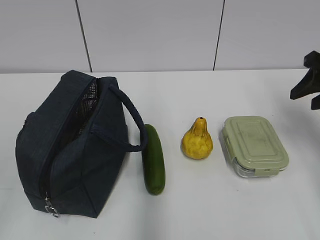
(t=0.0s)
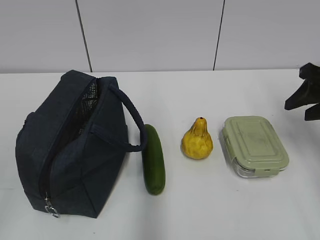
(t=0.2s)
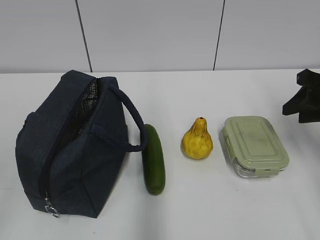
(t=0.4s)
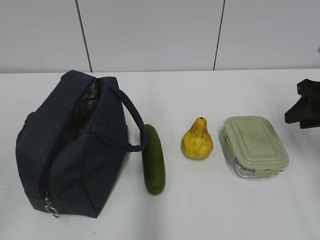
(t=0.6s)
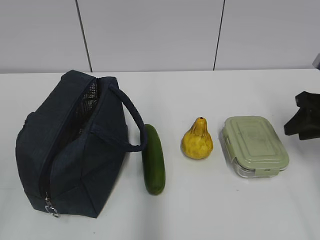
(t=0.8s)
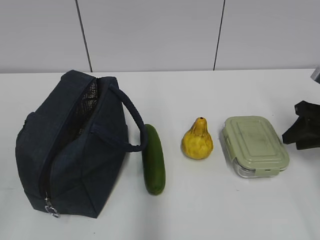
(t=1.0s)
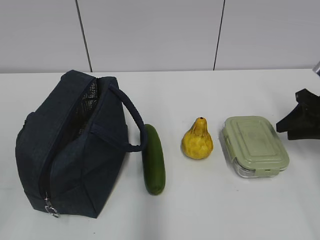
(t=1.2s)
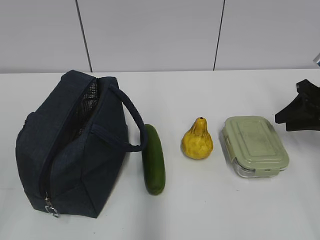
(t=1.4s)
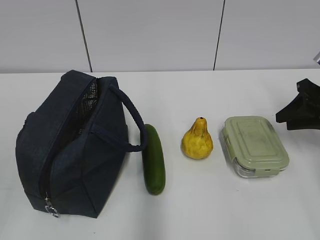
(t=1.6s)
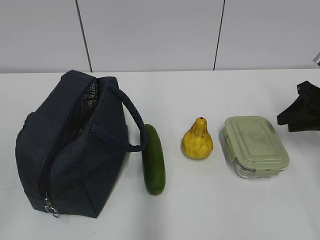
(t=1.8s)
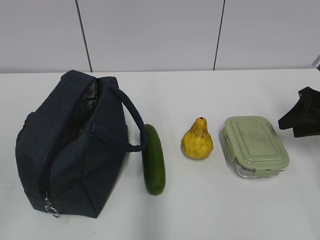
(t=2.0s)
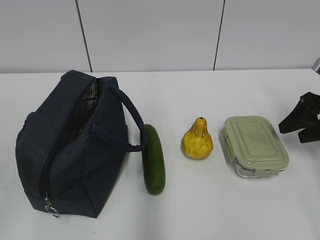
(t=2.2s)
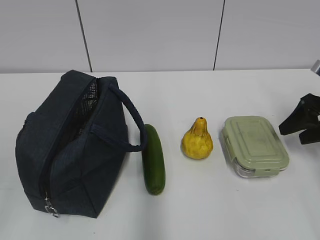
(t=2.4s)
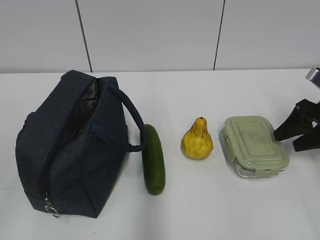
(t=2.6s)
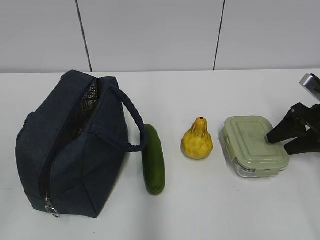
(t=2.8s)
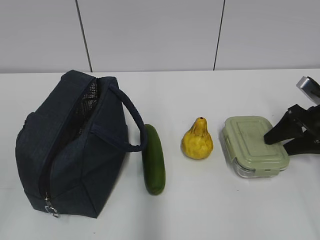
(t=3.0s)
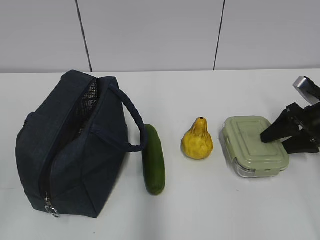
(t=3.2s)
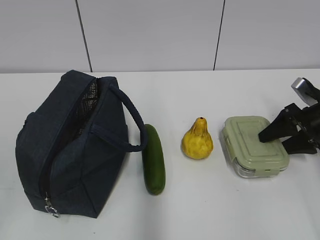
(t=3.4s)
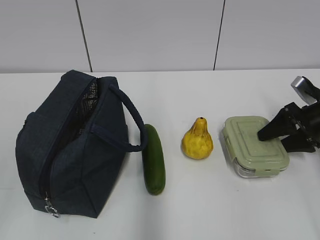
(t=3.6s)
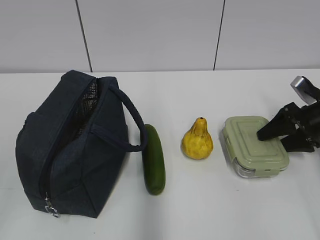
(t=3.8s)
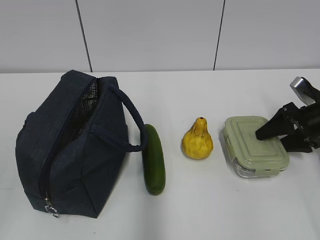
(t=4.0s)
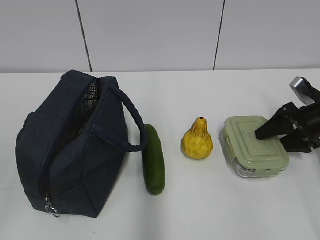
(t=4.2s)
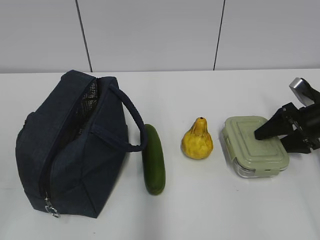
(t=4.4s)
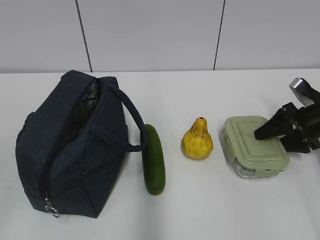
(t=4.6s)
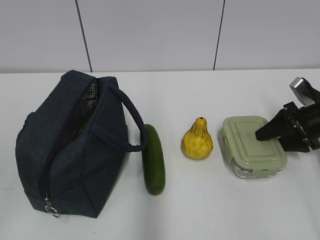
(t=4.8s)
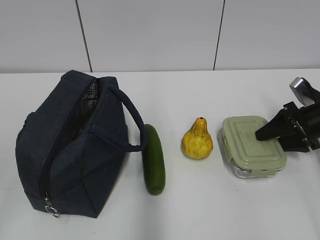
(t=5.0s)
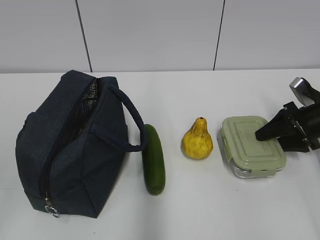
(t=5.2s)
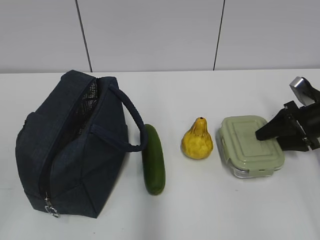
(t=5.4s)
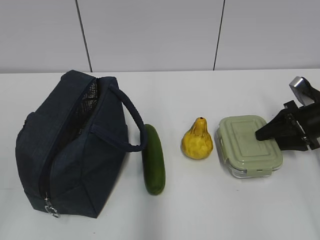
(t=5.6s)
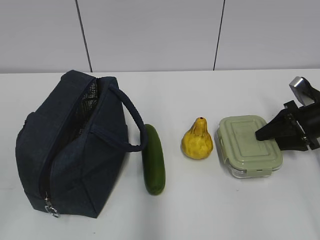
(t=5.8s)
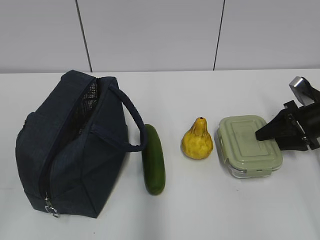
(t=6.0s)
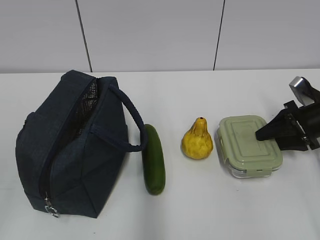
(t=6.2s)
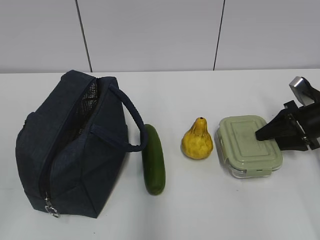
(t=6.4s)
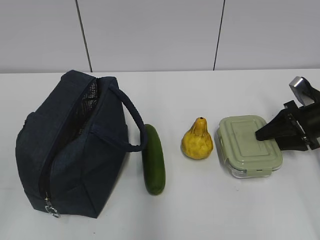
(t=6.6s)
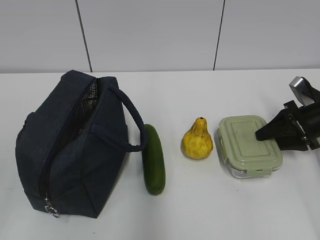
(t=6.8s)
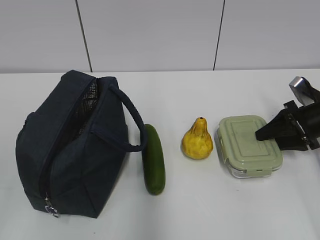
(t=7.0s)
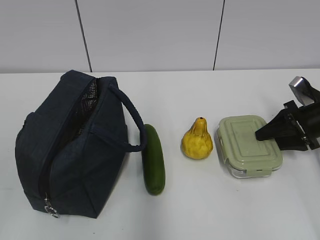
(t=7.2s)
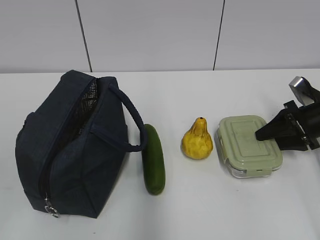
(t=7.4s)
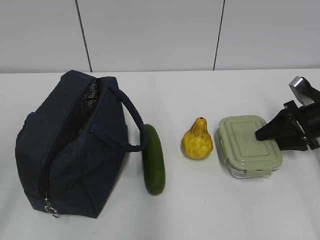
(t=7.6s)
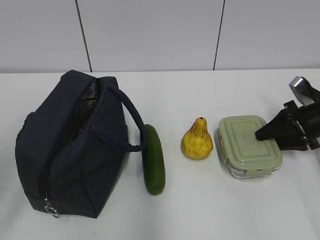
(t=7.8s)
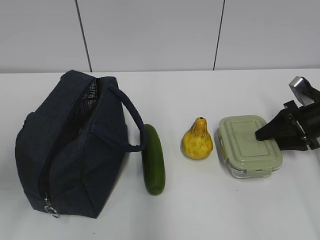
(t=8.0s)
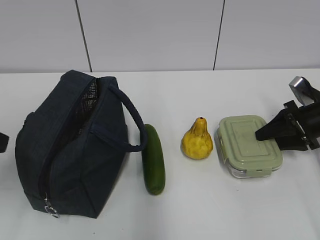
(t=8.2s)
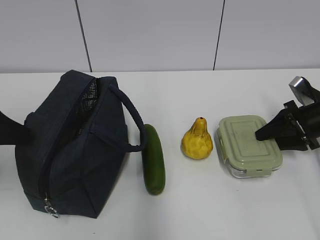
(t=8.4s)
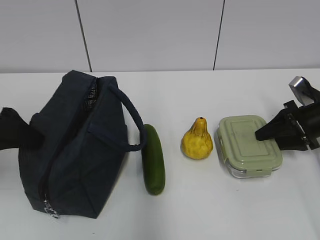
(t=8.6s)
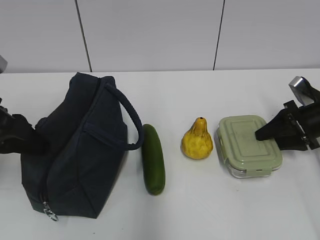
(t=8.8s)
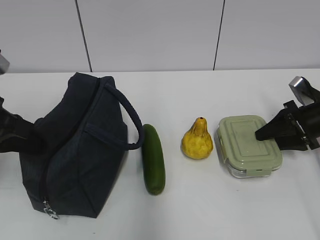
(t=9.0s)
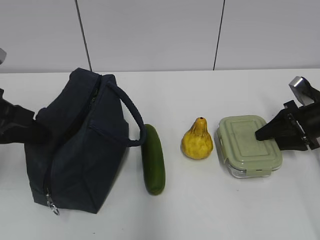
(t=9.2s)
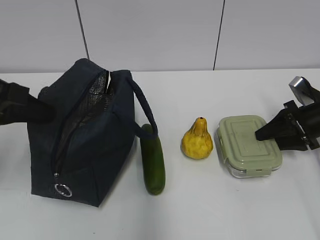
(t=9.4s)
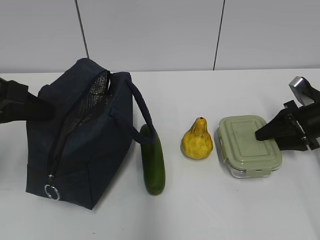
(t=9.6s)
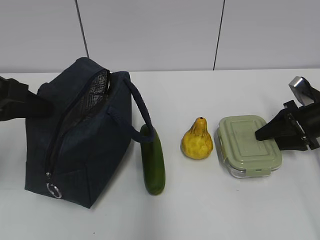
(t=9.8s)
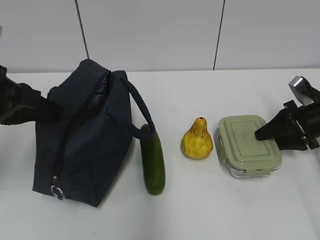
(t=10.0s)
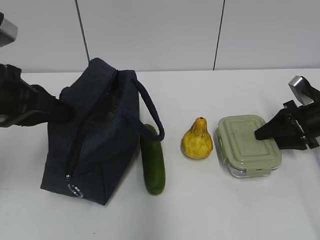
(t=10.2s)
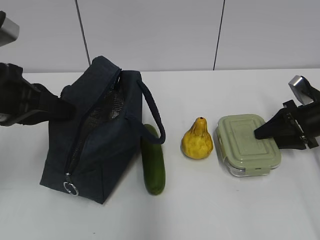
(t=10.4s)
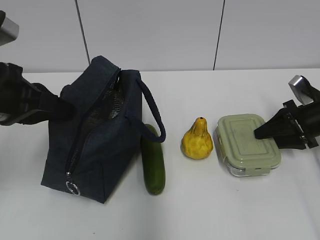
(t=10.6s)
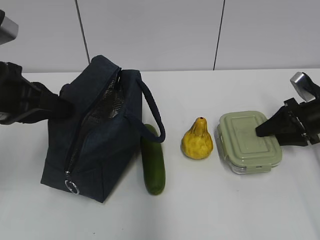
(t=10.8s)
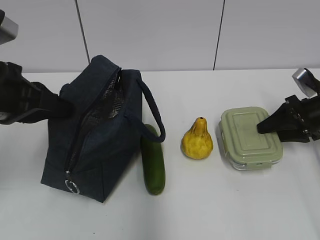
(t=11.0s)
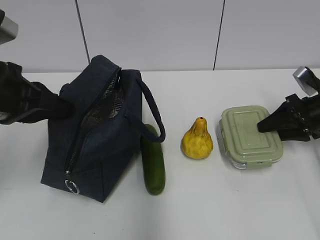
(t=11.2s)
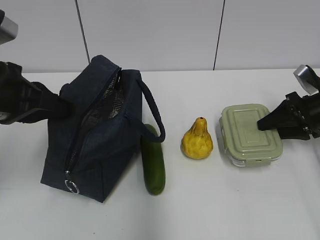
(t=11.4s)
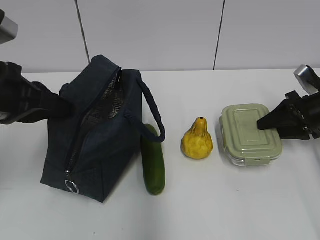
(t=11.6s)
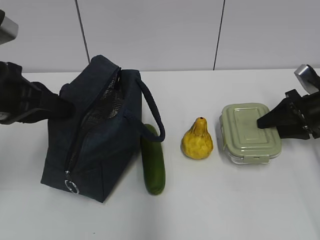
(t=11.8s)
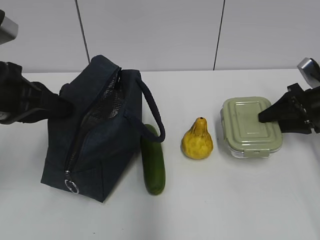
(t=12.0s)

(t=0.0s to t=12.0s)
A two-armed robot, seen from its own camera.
Step, t=0.0s - t=9.4s: Grab the lunch box with your right hand.
t=0.0s - t=1.6s: The right gripper shifts roughly 5 cm downward.
t=1.6s - t=3.0s: The right gripper changes place by some 5 cm, and opens its fingers.
t=3.0s - t=4.4s: The grippers move only a little.
t=4.4s - t=6.0s: Both grippers stay put.
t=7.6s - t=9.0s: The left gripper is displaced forward by roughly 20 cm, and closes its fingers.
t=9.0s - t=12.0s: The grippers move only a little.

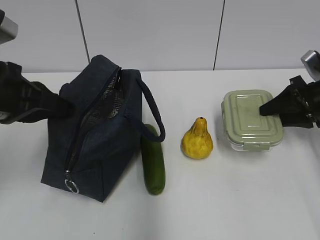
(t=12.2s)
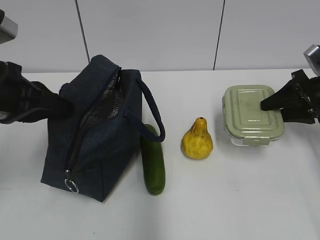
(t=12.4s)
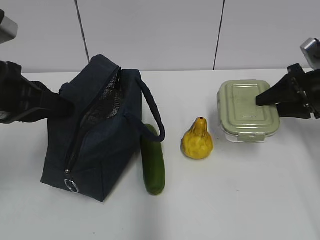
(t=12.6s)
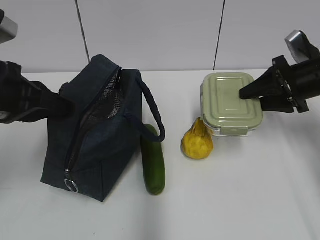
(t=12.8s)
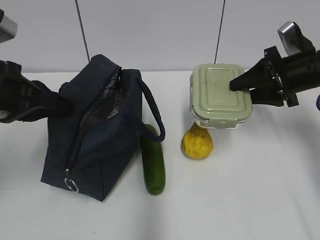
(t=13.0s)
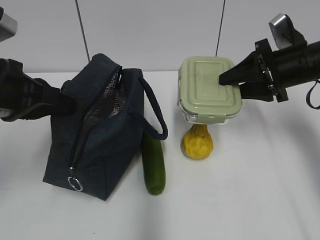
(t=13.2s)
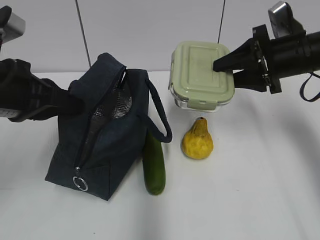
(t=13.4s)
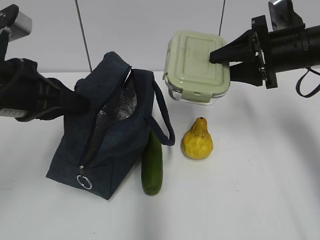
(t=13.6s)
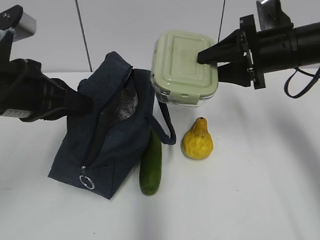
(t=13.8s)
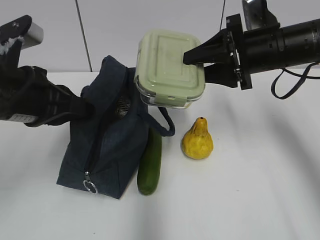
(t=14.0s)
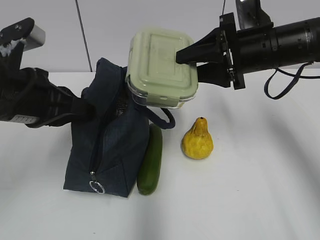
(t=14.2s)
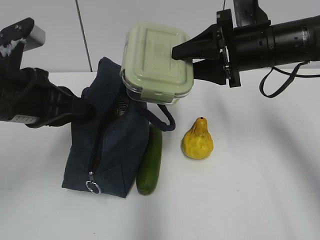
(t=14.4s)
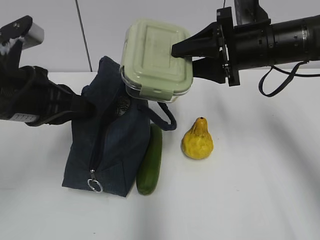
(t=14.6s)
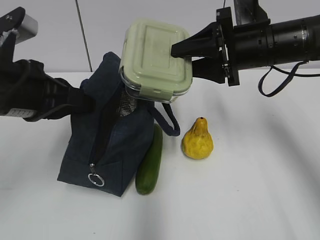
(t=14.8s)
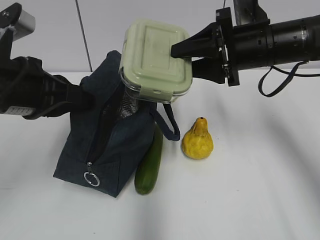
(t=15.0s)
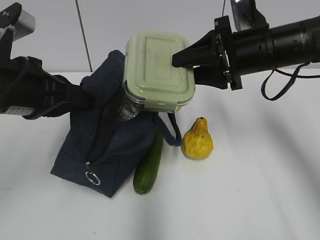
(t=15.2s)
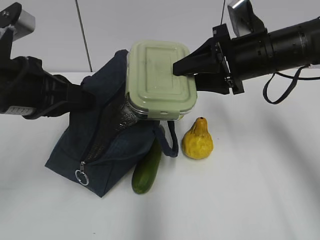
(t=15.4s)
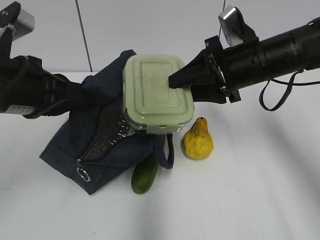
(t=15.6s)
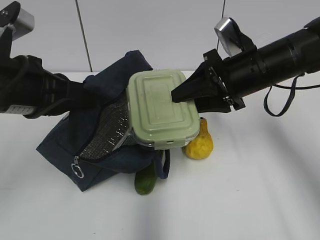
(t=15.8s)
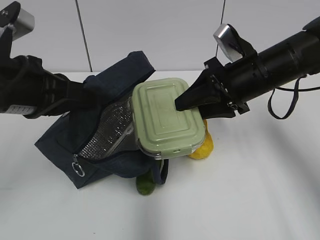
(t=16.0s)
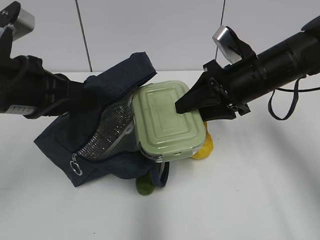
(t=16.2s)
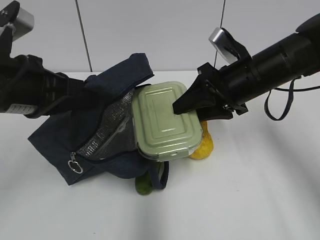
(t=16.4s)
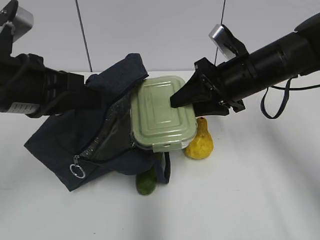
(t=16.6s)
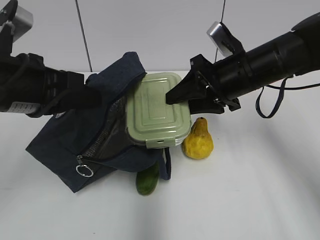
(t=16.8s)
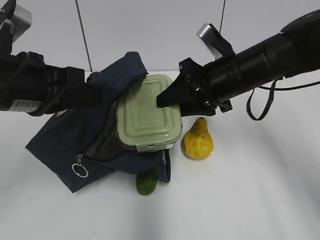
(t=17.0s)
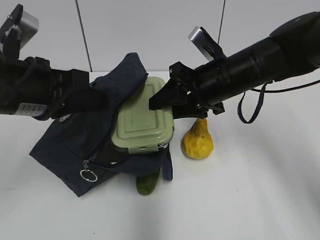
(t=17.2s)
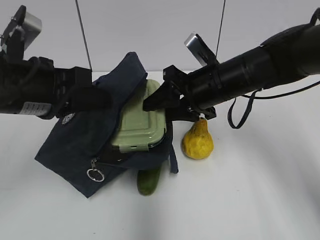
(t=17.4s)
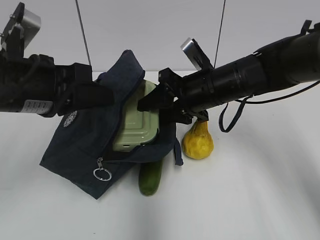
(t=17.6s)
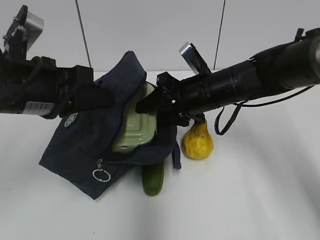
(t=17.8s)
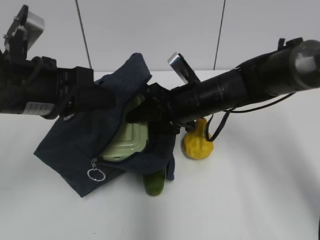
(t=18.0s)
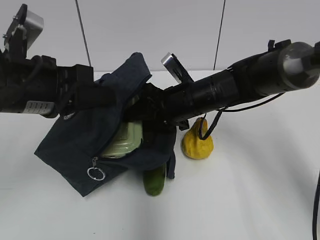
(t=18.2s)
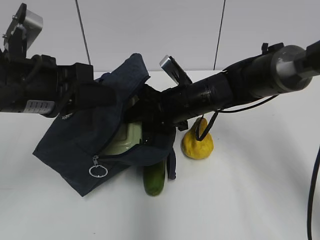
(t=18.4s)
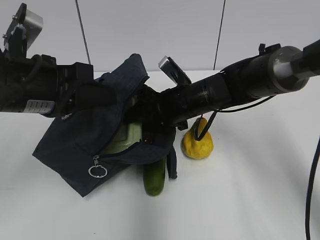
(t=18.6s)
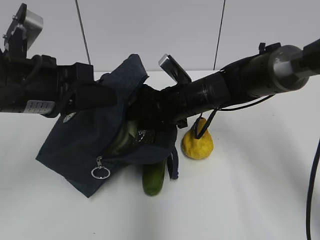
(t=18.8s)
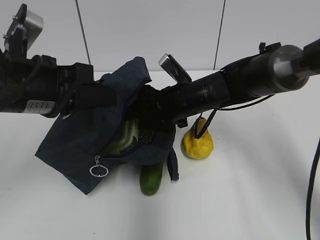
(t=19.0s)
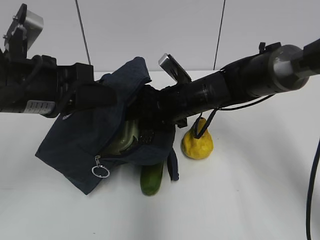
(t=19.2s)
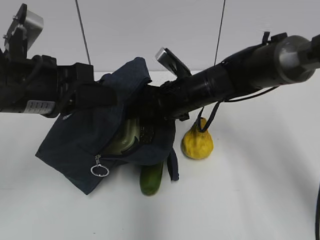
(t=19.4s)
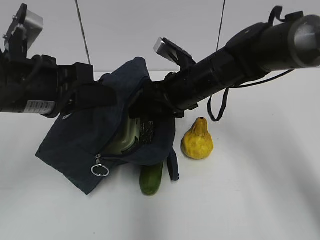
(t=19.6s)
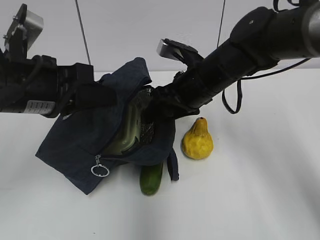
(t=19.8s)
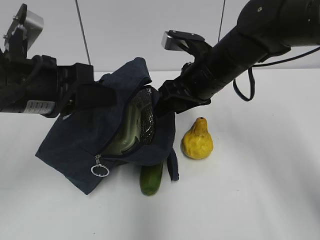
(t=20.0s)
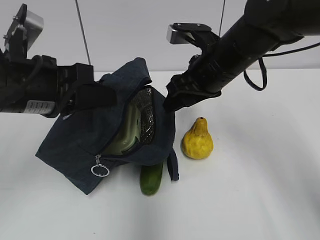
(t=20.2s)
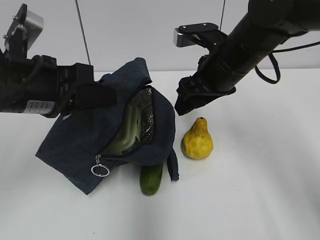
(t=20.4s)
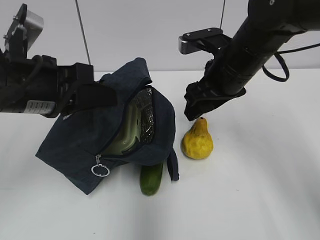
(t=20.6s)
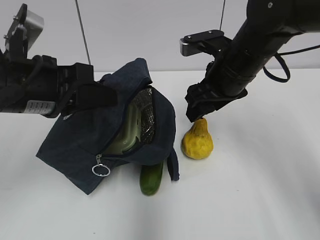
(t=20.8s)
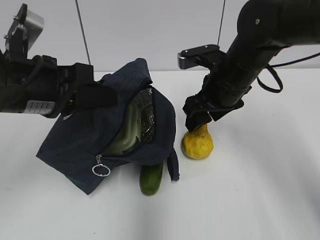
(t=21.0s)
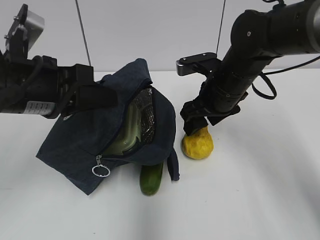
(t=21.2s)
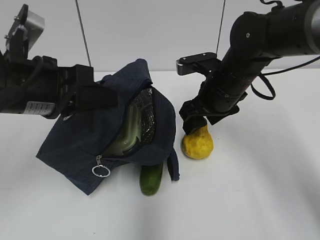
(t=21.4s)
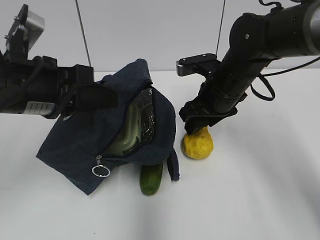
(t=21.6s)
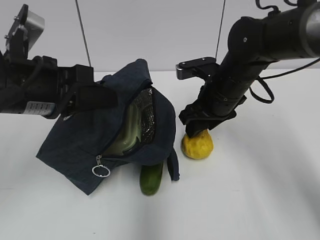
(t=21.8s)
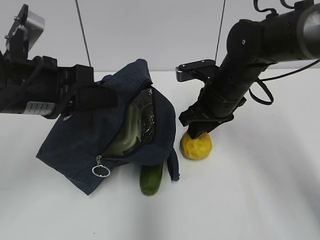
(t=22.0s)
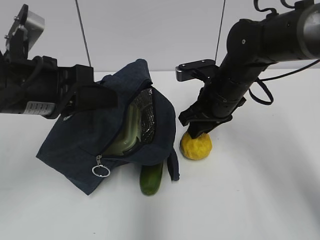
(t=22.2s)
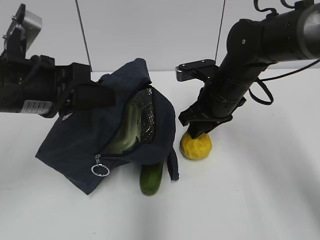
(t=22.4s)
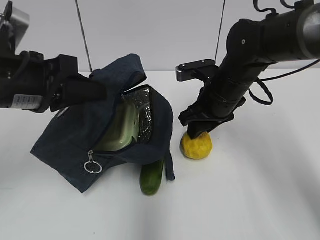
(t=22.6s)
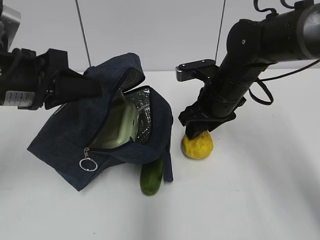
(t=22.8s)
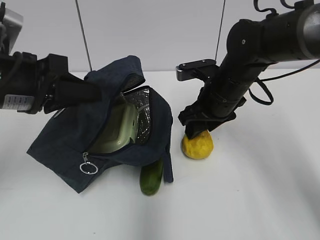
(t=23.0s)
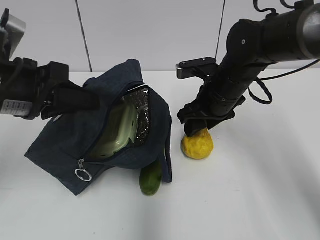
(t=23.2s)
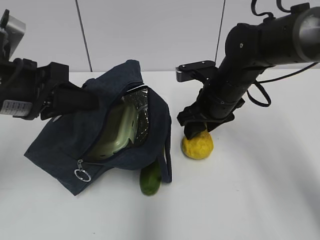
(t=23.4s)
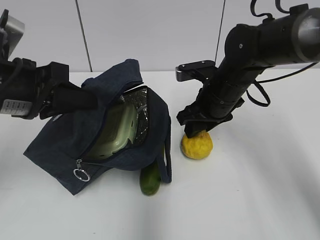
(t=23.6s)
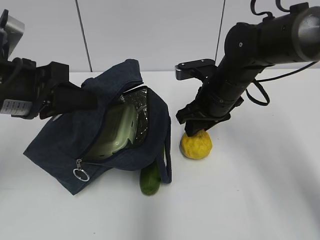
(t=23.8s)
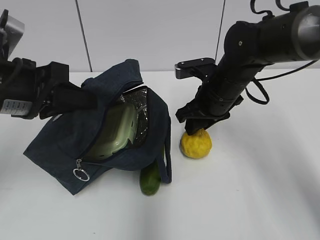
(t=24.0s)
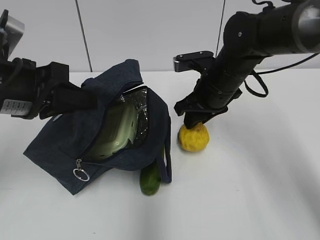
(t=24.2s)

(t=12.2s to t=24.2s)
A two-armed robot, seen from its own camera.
Step, t=12.2s - t=15.2s: Grab the lunch bag with your left hand.
Step, t=15.4s - t=19.2s: Place it into the bag with your right hand.
Step, t=19.4s - t=23.6s: Grab the pear with your right hand.
t=12.2s - t=13.8s: The right gripper shifts some 15 cm to the left and upward.
t=13.8s - t=15.2s: There are only small adjustments of the grippers.
t=16.6s - t=18.2s: The right gripper goes roughly 10 cm to the left and downward.
t=21.2s - t=22.6s: The right gripper closes its fingers.
t=22.6s - t=24.2s: The grippers make only small movements.
